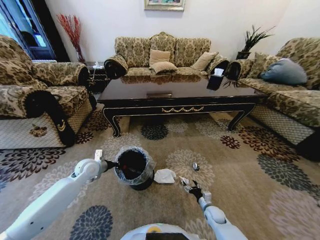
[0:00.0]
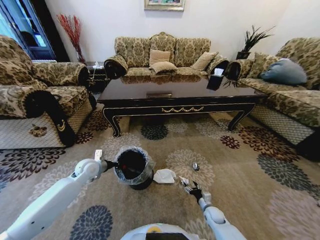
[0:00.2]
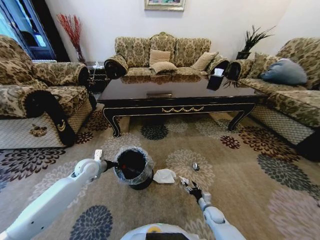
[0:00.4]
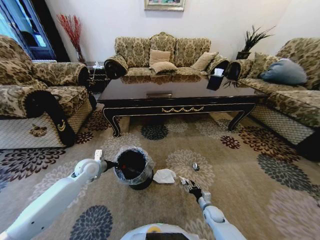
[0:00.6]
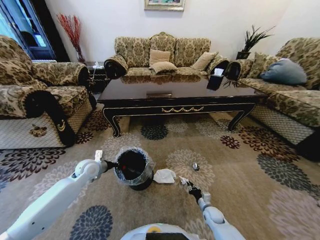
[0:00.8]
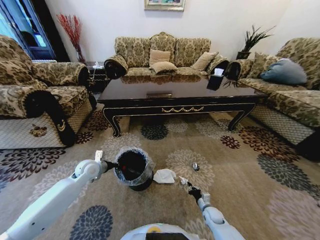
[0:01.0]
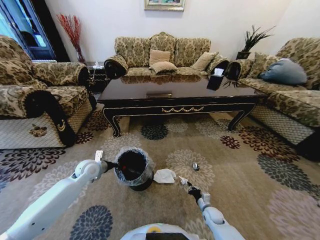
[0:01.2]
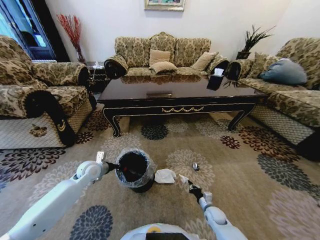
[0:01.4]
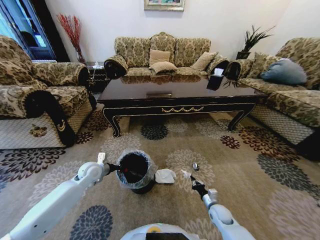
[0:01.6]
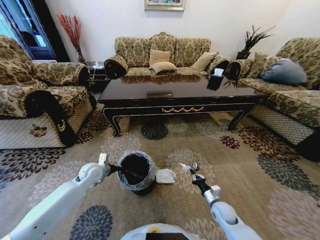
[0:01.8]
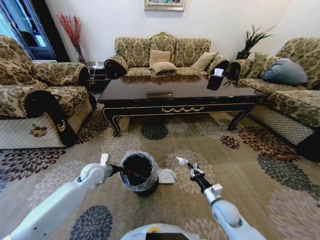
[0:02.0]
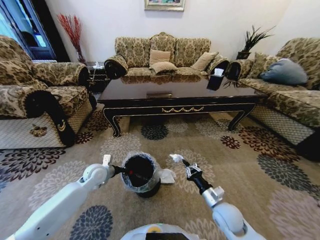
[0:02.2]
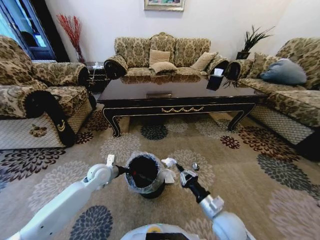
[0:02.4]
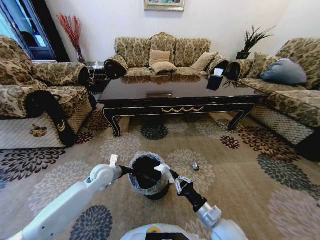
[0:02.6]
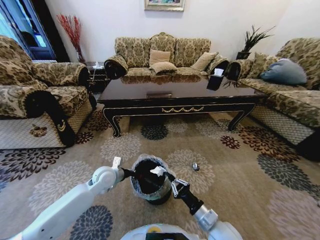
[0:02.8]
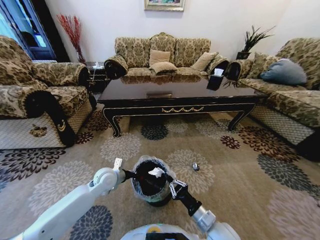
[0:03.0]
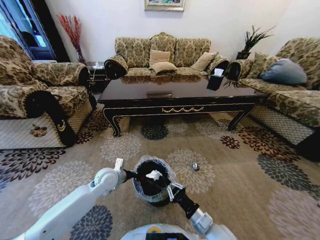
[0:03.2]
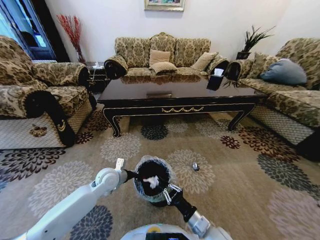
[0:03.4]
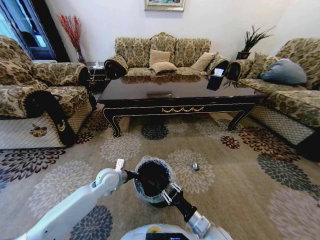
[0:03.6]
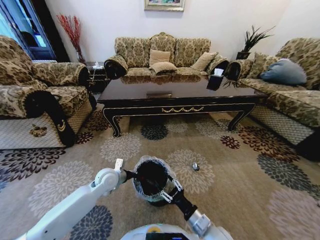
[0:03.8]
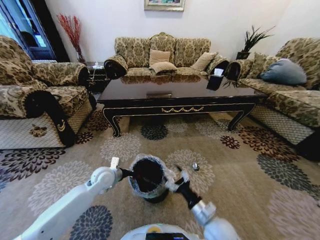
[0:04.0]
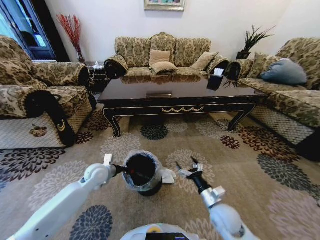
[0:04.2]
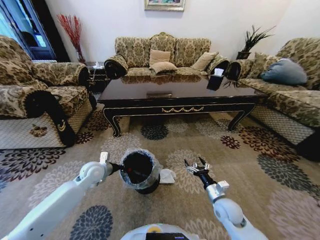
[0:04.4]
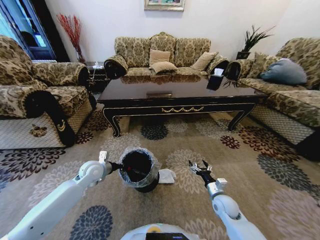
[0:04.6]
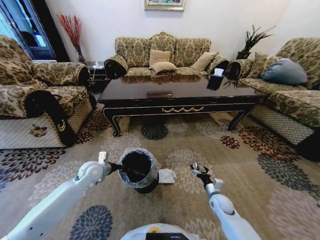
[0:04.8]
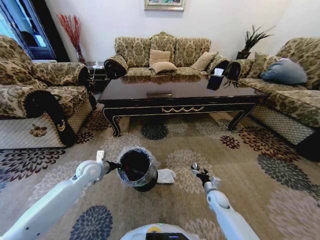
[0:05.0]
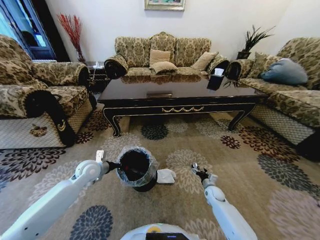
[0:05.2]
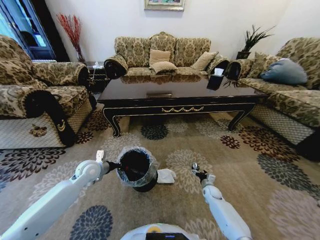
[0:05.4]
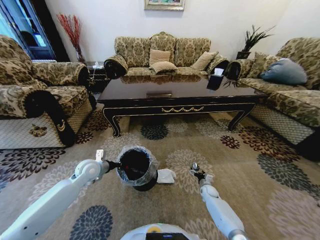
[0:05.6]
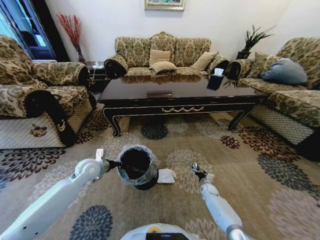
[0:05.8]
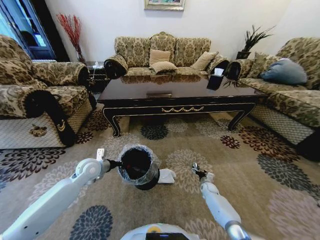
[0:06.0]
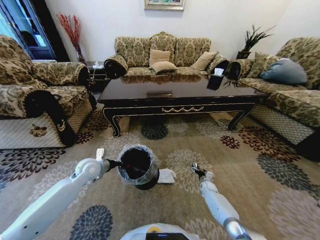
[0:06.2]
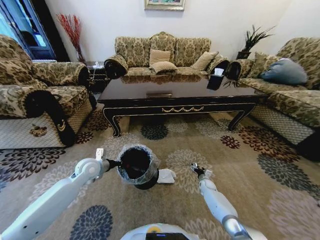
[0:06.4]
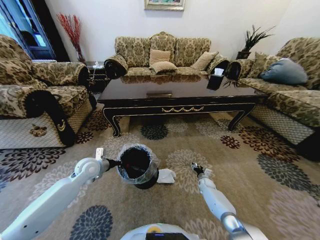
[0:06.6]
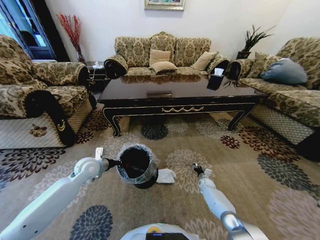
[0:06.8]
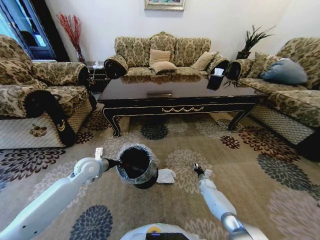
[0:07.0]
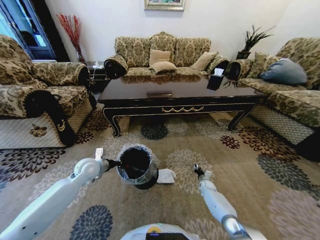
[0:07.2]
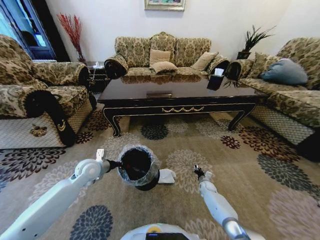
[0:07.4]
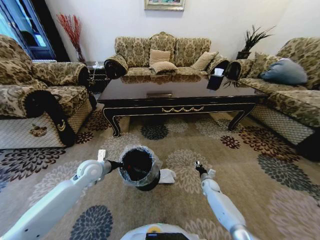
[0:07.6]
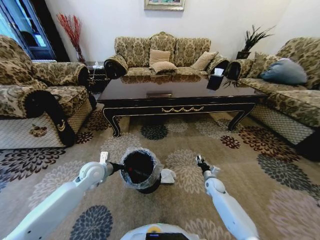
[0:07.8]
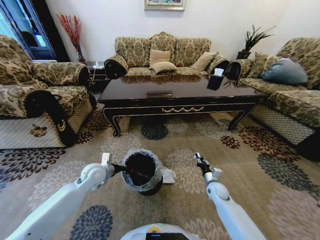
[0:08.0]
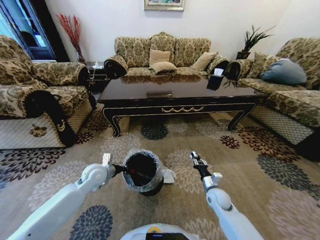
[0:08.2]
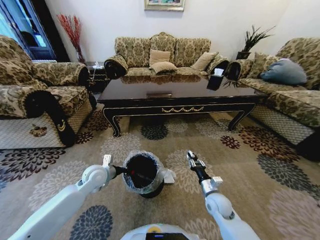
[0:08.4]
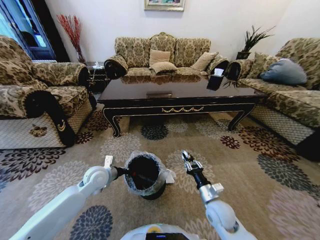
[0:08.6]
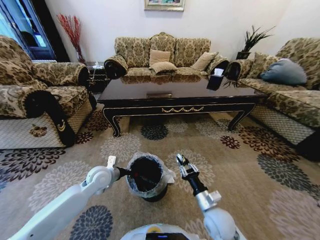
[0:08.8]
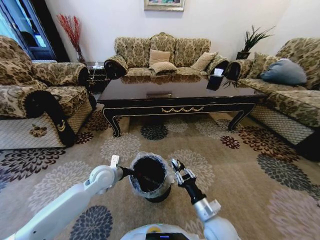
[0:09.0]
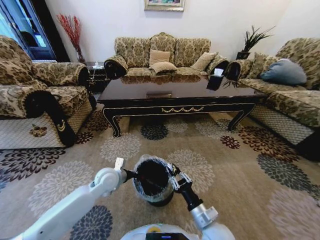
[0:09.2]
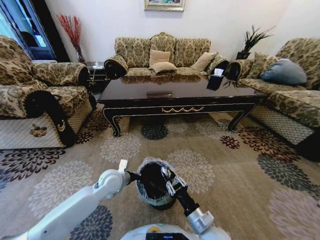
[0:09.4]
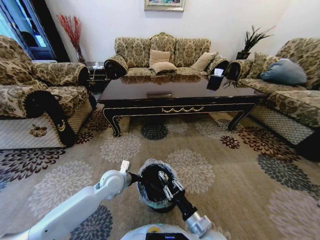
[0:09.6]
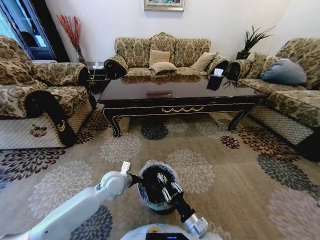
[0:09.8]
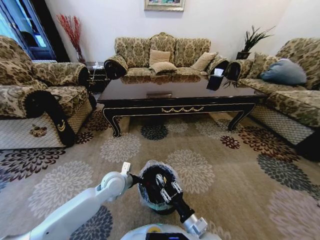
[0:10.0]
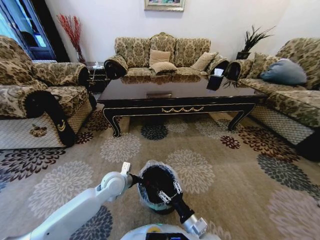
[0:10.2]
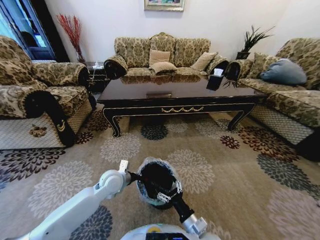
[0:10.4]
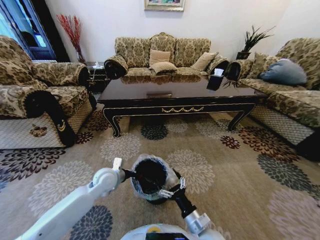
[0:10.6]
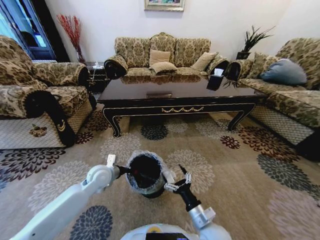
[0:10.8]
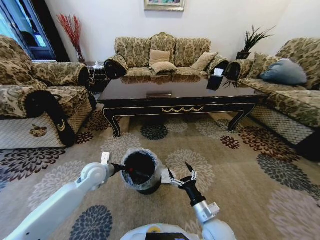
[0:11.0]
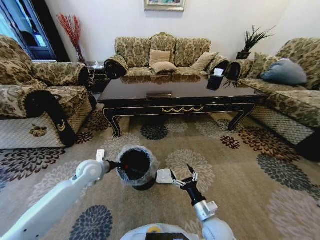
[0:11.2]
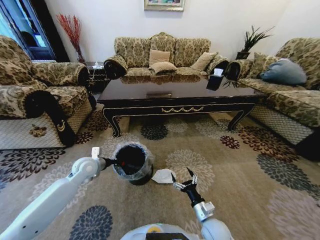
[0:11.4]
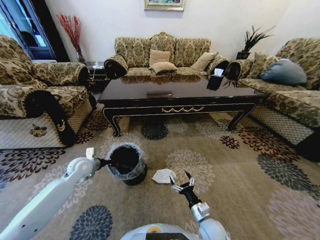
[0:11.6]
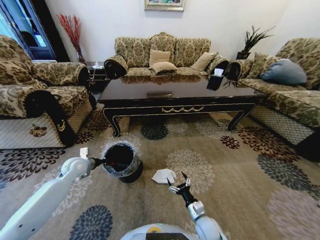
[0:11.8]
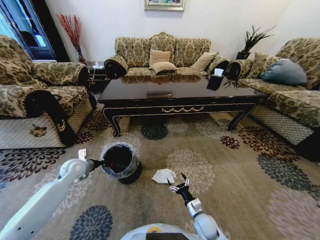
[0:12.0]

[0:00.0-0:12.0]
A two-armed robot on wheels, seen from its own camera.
Task of the whole recording: Move to the front of the table and pick up the trash from the floor, then place it into the trash bin.
0:00.0 to 0:01.6: The right gripper closes.
0:01.6 to 0:03.0: The right gripper heads upward, to the left and backward, covering some 25 cm, while the left gripper travels to the right by about 10 cm.
0:03.0 to 0:04.4: The right gripper shifts roughly 10 cm forward and to the right, and opens up, while the left gripper goes some 5 cm to the left.
0:04.4 to 0:06.0: The right gripper goes approximately 25 cm downward and forward.
0:06.0 to 0:07.6: The right gripper closes.
0:07.6 to 0:09.0: The right gripper is displaced backward, upward and to the left by about 35 cm. Meanwhile the left gripper goes some 5 cm to the right.
0:09.0 to 0:10.4: The right gripper moves roughly 5 cm, and opens its fingers.
0:10.4 to 0:12.0: The left gripper is displaced to the left by about 20 cm. Meanwhile the right gripper travels downward, forward and to the right by roughly 15 cm.

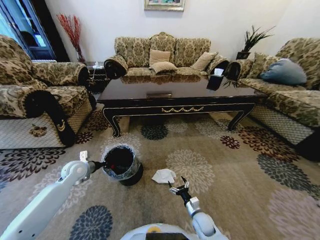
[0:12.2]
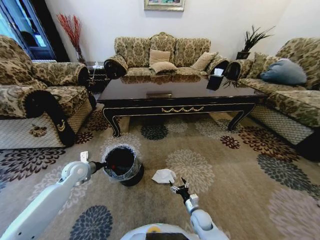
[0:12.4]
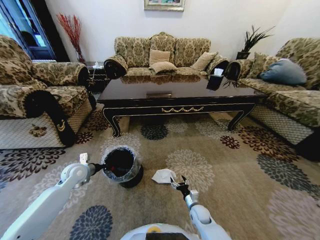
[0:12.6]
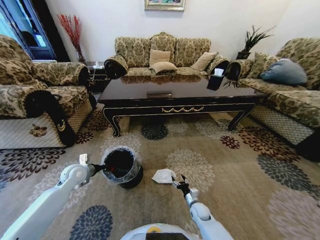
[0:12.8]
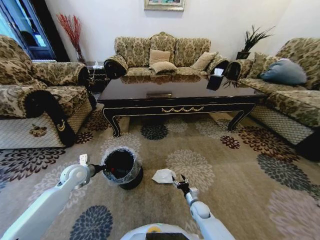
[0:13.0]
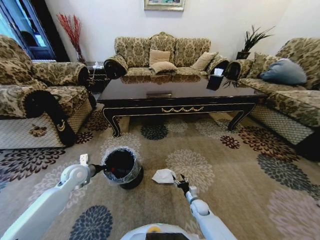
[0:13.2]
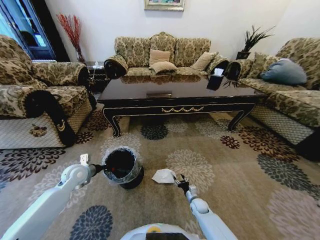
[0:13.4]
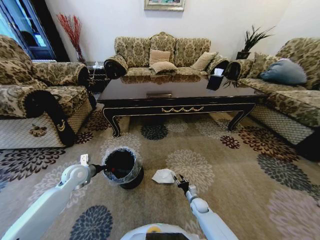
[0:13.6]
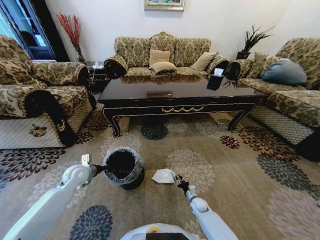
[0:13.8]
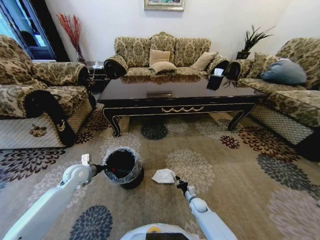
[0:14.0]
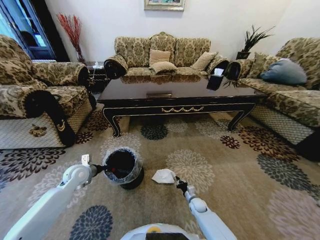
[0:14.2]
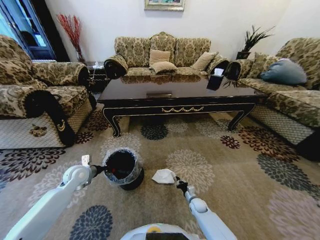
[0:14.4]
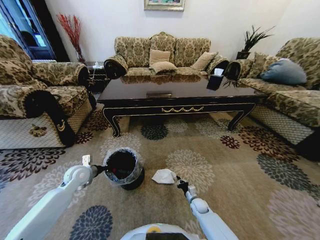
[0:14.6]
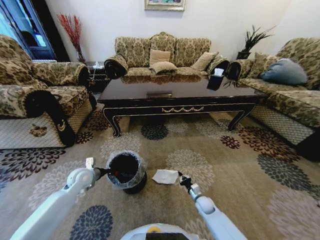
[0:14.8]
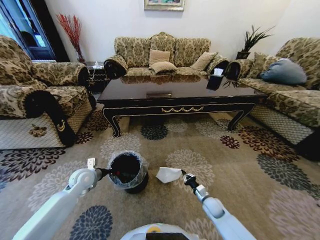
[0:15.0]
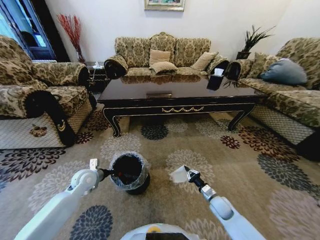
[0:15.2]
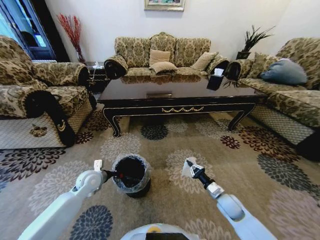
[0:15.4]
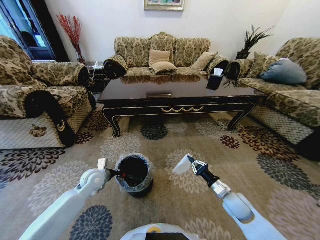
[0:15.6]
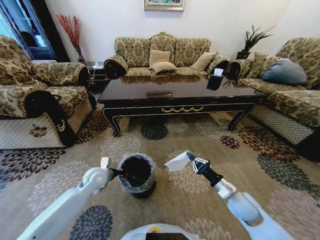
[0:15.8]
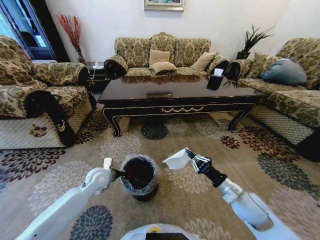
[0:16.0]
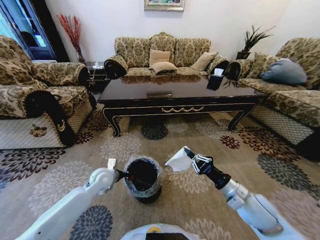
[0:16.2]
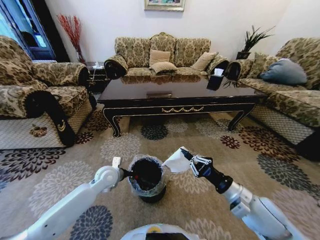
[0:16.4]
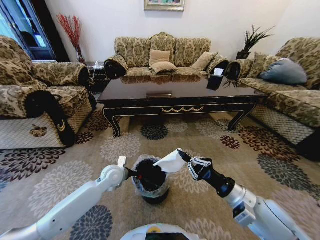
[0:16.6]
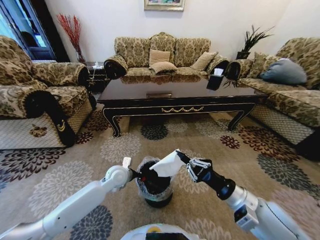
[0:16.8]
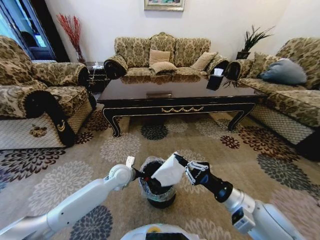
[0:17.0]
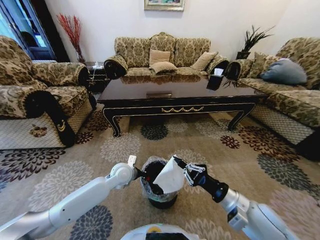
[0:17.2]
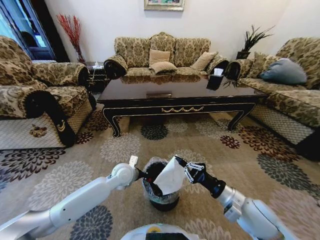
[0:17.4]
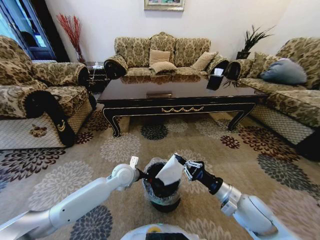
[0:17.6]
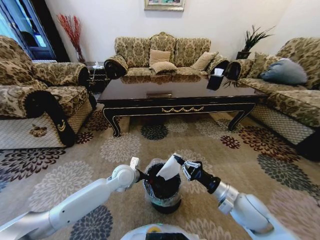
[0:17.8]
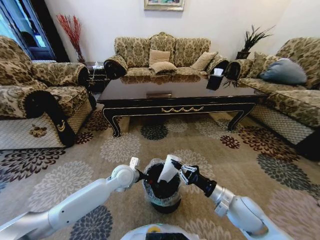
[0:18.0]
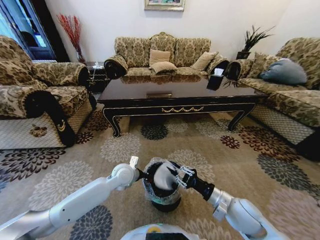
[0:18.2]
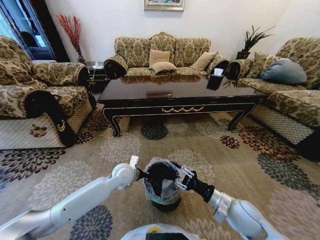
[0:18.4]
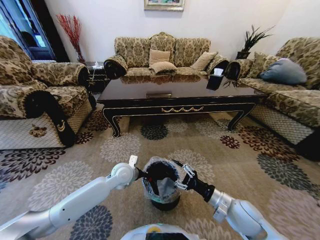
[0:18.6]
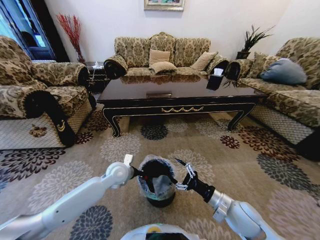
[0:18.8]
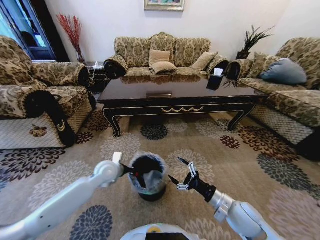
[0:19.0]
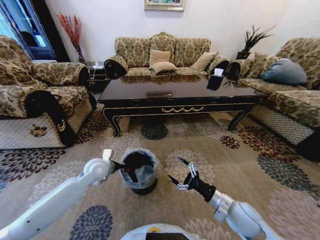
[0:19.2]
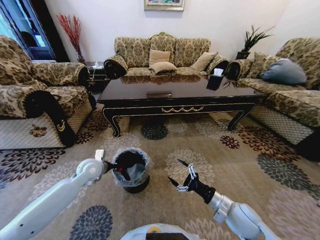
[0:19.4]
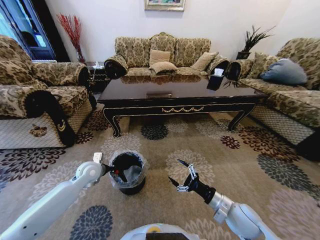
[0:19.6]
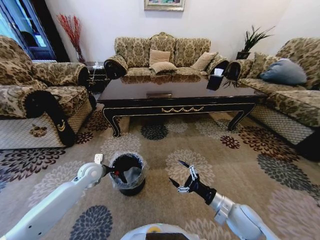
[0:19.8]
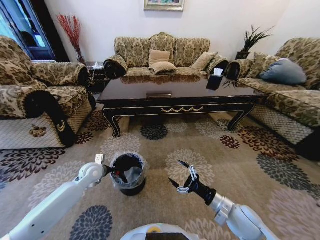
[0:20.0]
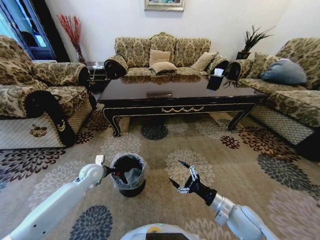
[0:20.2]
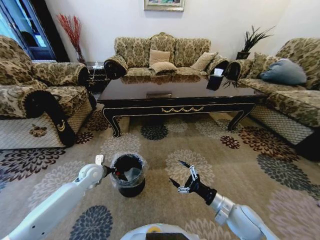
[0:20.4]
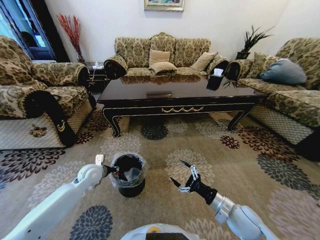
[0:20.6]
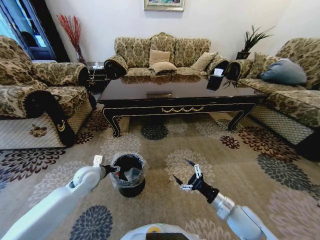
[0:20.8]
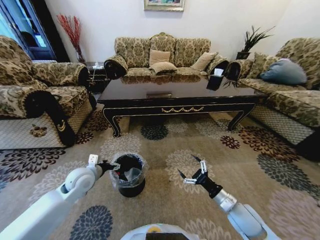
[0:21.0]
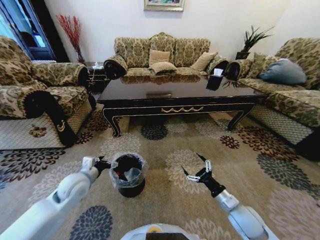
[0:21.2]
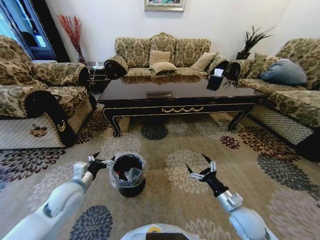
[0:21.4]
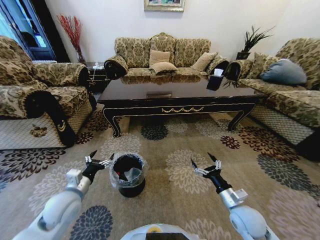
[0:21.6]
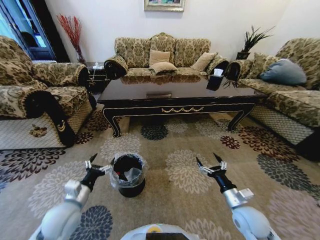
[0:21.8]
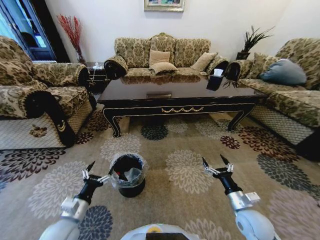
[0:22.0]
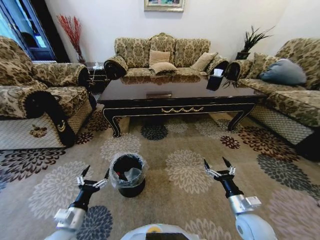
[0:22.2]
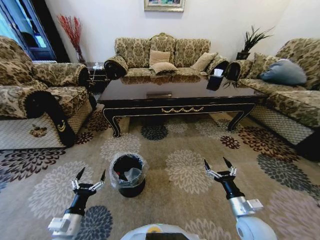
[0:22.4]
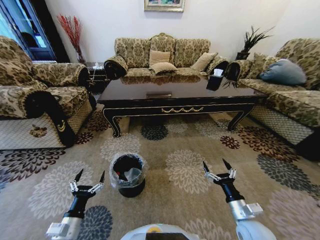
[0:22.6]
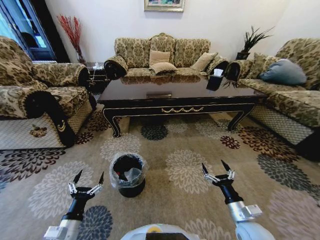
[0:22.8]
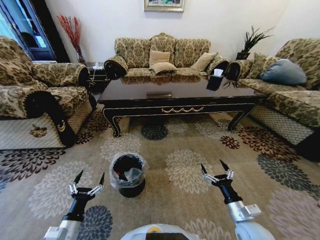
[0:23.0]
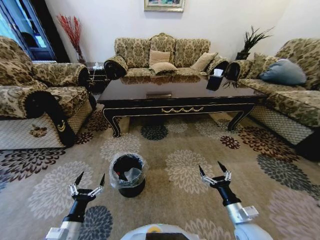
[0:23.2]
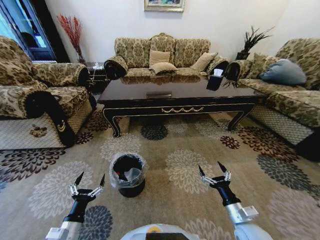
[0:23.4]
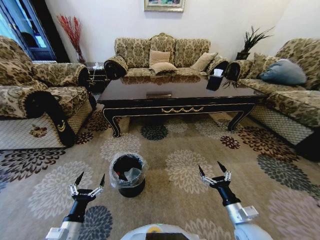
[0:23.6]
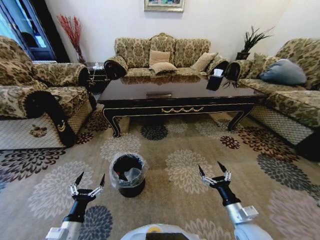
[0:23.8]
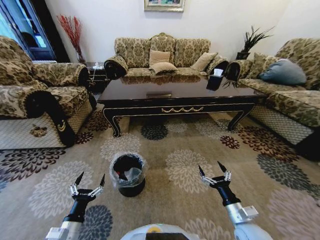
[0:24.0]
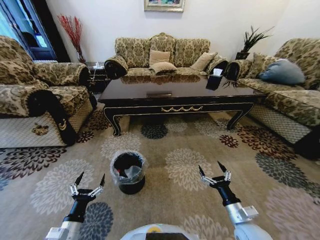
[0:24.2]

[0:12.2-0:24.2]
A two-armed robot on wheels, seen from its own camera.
Task of the whole recording: Move to the front of the table and pick up the trash from the floor, then place it into the trash bin.
0:12.2 to 0:13.8: The right gripper shifts roughly 10 cm forward and downward, and closes up.
0:13.8 to 0:15.2: The right gripper moves upward and to the right, some 15 cm.
0:15.2 to 0:16.6: The left gripper goes some 15 cm to the right. The right gripper is displaced upward by approximately 25 cm.
0:16.6 to 0:18.2: The right gripper shifts roughly 10 cm downward.
0:18.2 to 0:19.8: The left gripper is displaced to the left by some 15 cm. Meanwhile the right gripper opens.
0:19.8 to 0:21.2: The left gripper travels backward by about 5 cm, and opens its fingers.
0:21.2 to 0:22.6: The left gripper shifts roughly 20 cm backward and downward.
0:22.6 to 0:24.2: Both grippers stay about where they are.